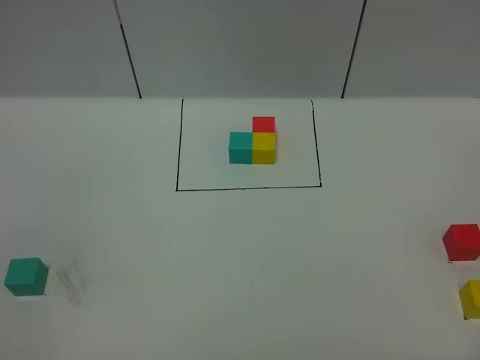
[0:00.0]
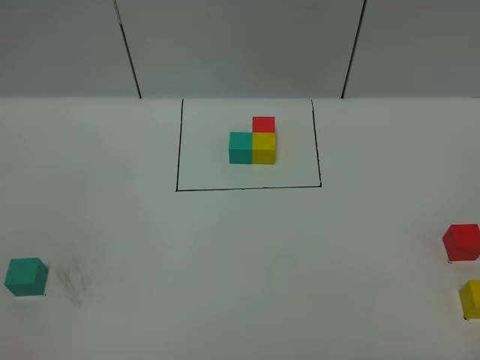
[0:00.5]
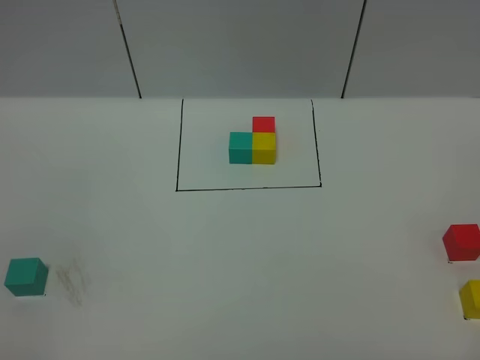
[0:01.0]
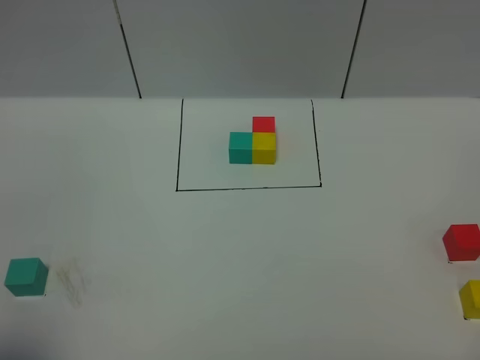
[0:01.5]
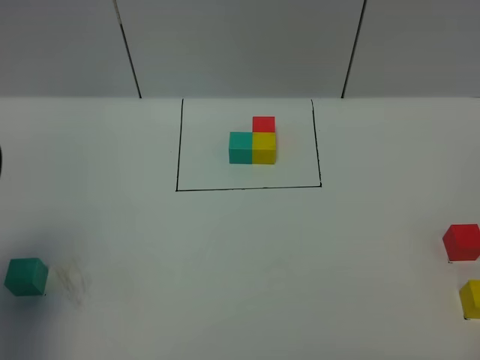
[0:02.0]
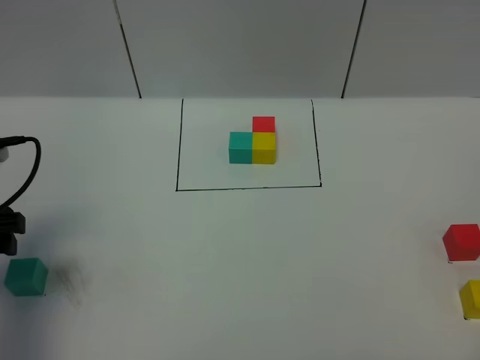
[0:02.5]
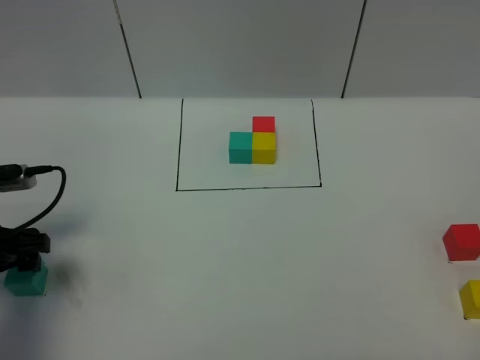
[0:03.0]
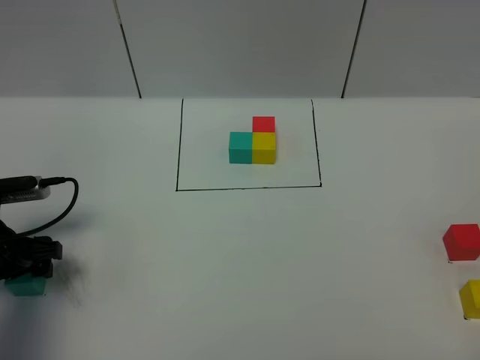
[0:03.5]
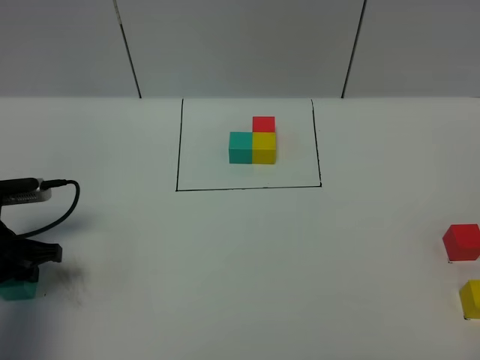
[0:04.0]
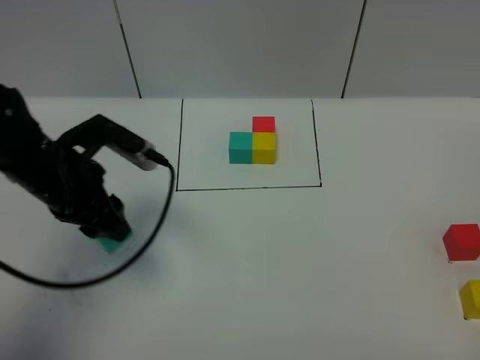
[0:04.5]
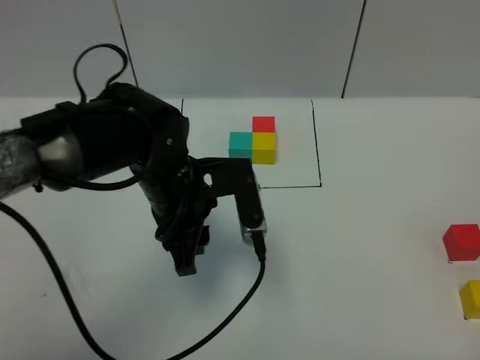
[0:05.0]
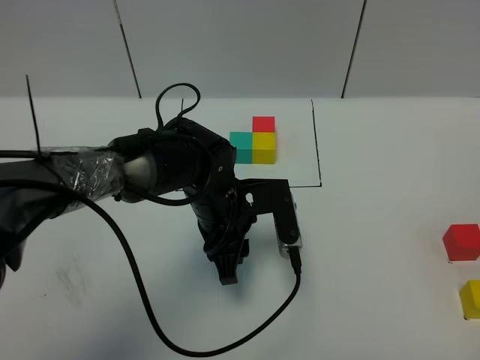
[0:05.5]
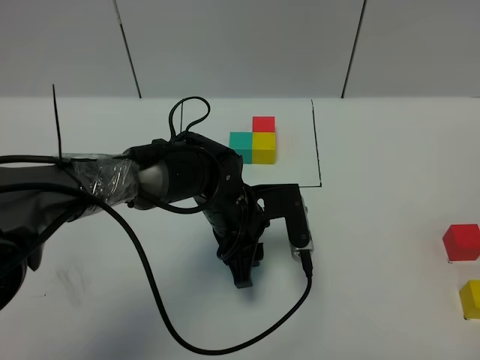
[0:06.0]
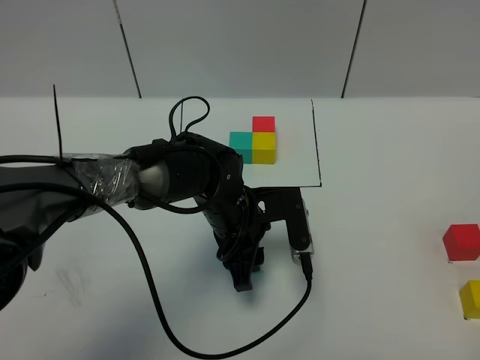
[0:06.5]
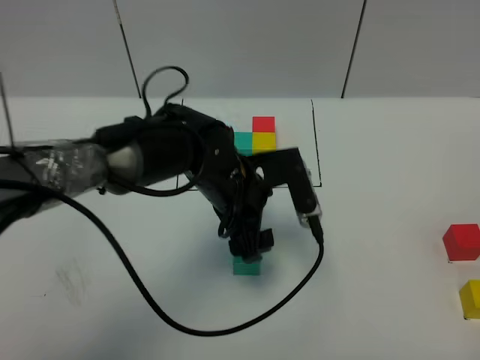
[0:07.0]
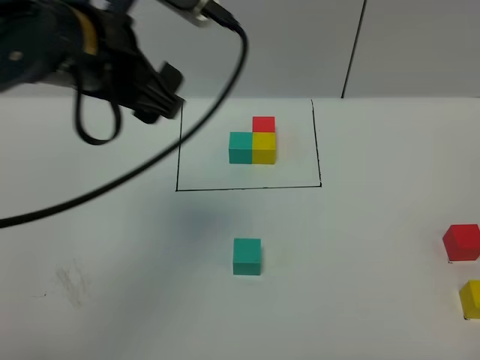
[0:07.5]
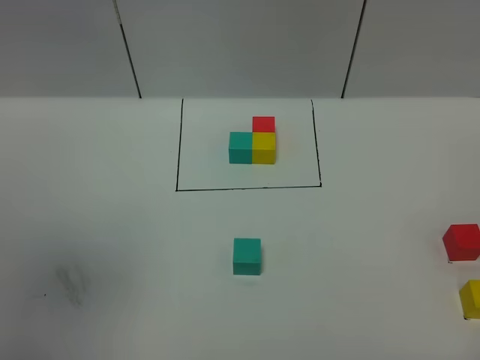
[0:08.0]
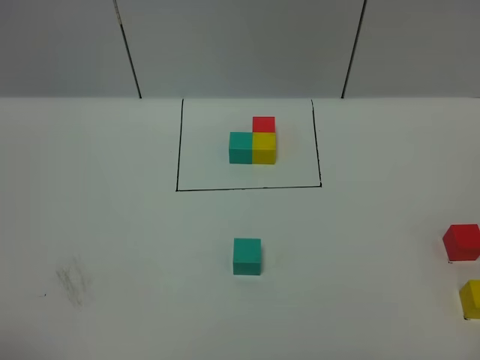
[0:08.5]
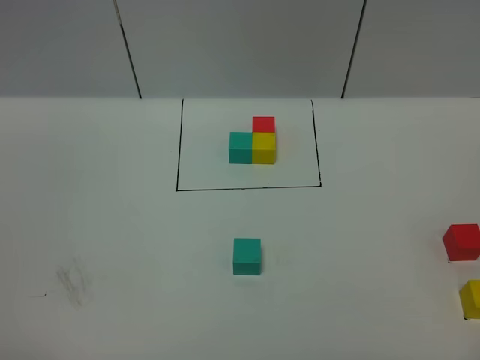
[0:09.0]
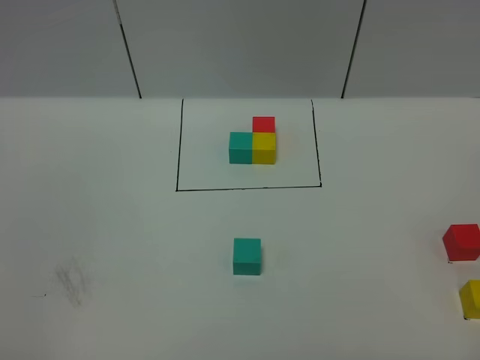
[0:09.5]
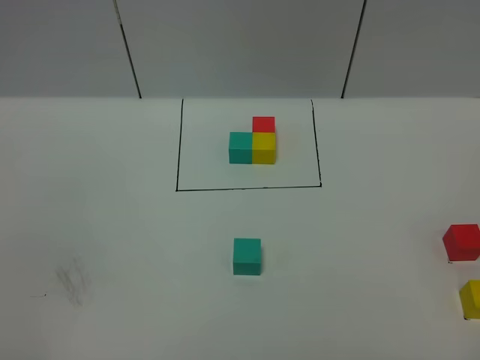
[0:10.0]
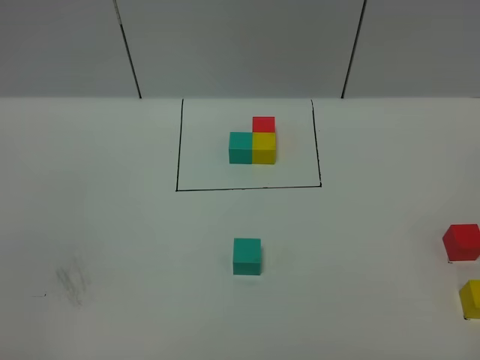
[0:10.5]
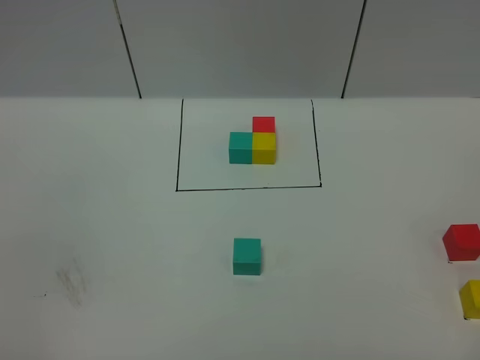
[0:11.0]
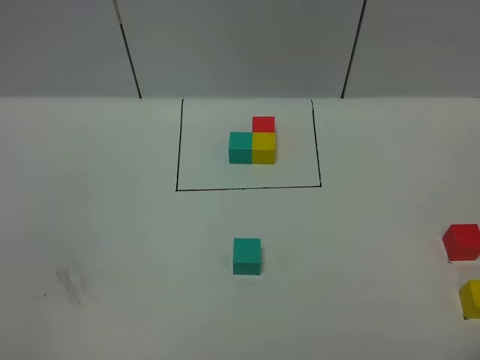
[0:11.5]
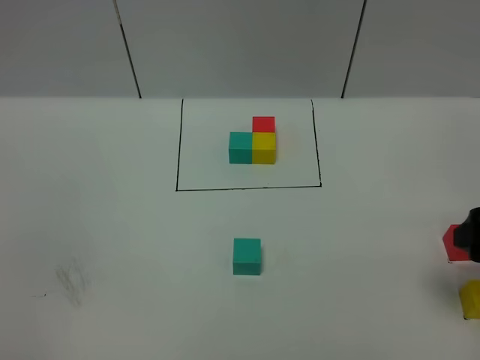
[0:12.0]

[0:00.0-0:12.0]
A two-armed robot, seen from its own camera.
Task of the whole recording: According to the building block template in front, assemble the scattered blocks together.
Step, 0:02.0 to 0:06.5: Put the green cube in the center of the table.
0:00.0 to 0:02.0: The left gripper travels forward by about 20 cm.
0:02.0 to 0:04.0: The left gripper travels downward and forward by roughly 15 cm, and closes up.
0:04.0 to 0:06.0: The left gripper shifts about 30 cm to the right.
0:06.0 to 0:08.0: The left gripper is displaced upward, to the left and backward by approximately 50 cm, and opens.
0:08.0 to 0:10.0: The left gripper shifts about 25 cm downward and backward.
0:10.0 to 0:12.0: The right gripper shifts some 20 cm forward.

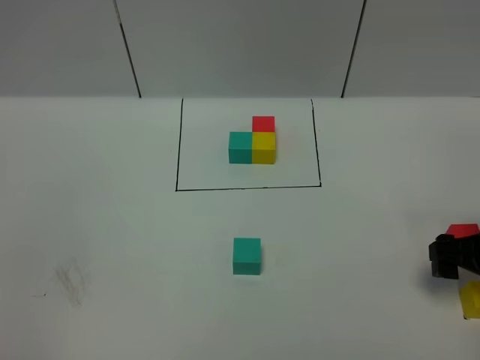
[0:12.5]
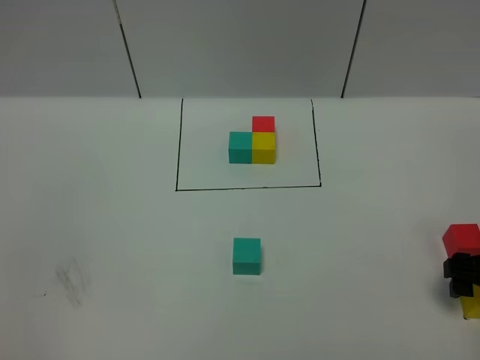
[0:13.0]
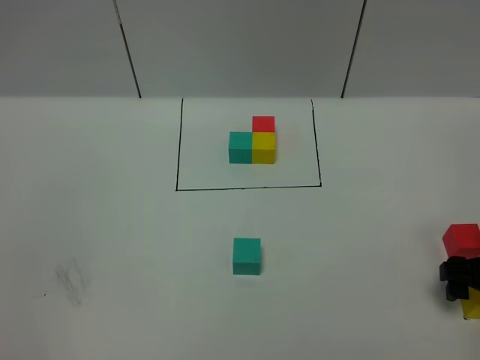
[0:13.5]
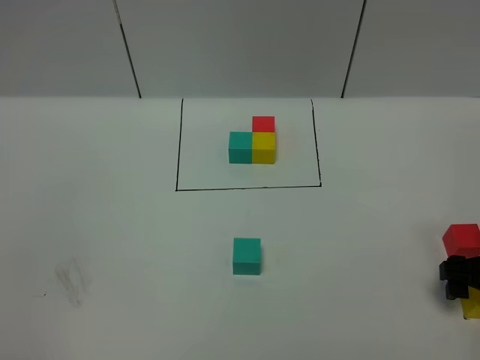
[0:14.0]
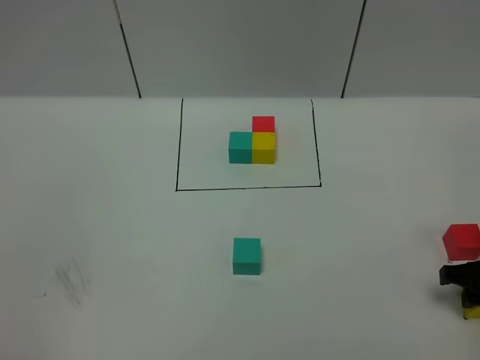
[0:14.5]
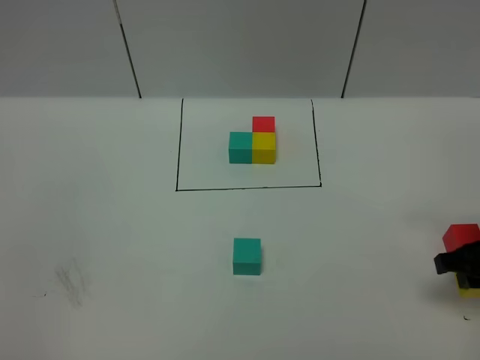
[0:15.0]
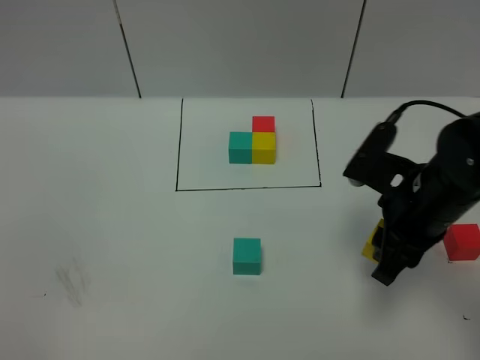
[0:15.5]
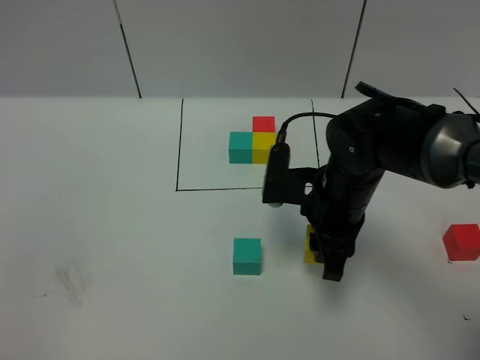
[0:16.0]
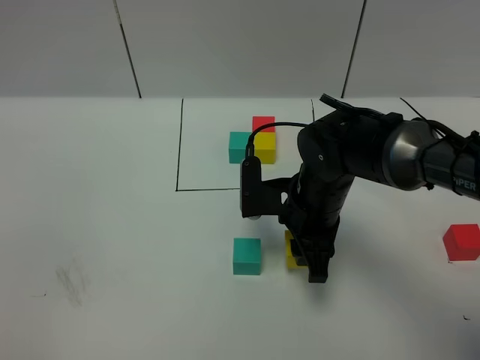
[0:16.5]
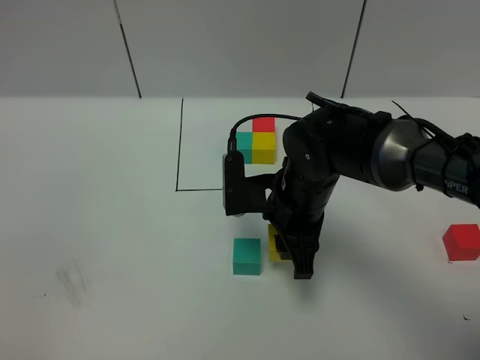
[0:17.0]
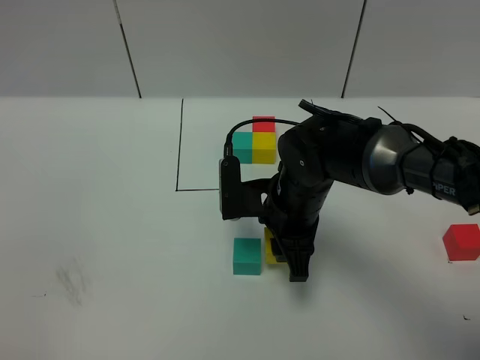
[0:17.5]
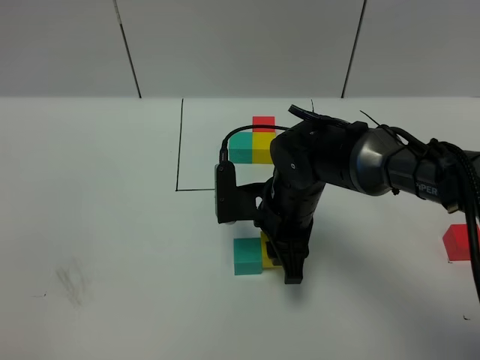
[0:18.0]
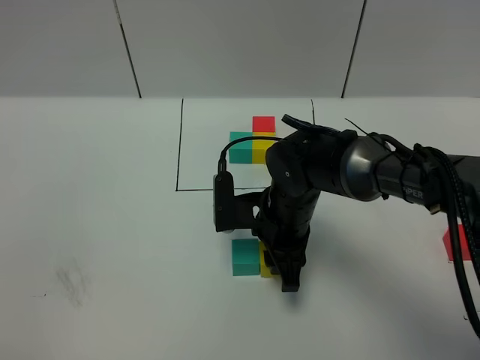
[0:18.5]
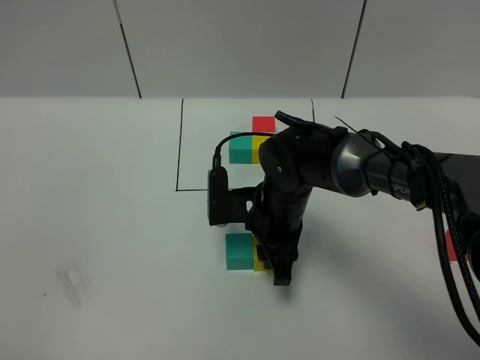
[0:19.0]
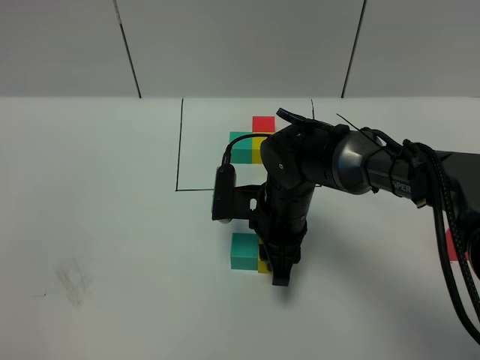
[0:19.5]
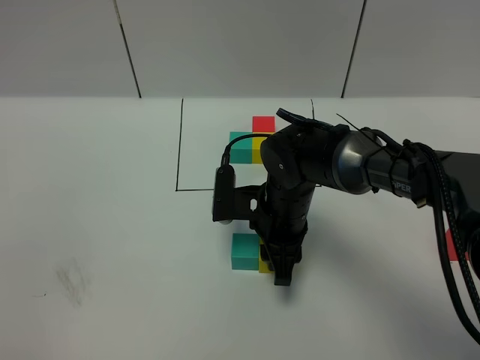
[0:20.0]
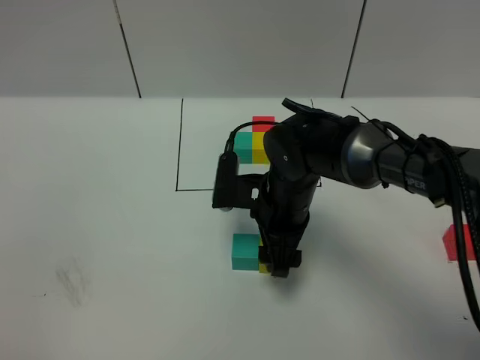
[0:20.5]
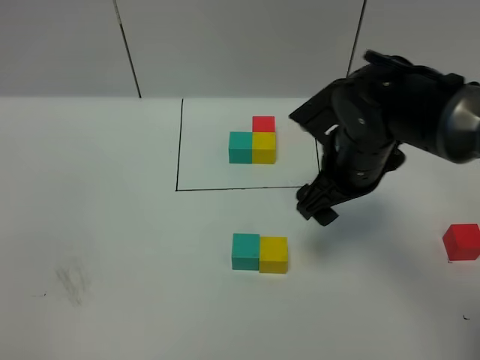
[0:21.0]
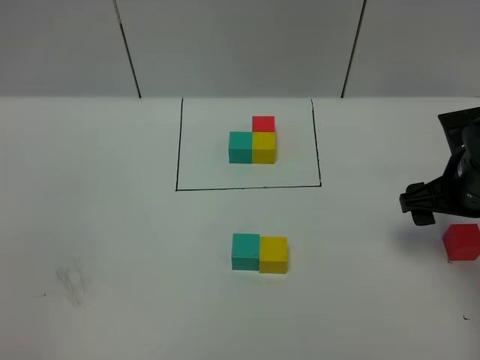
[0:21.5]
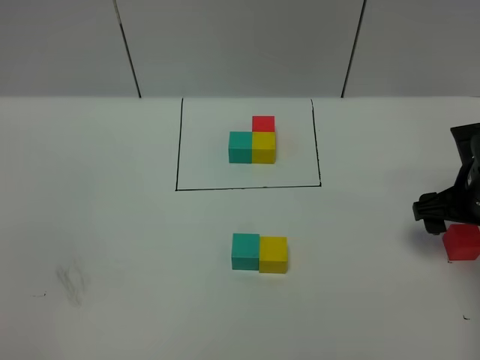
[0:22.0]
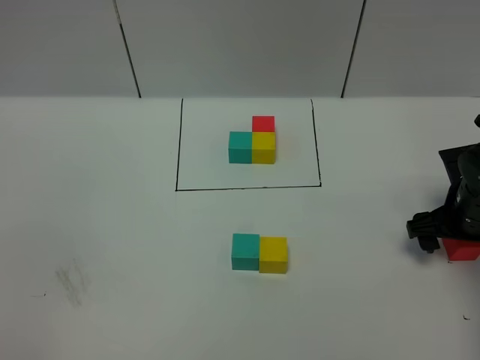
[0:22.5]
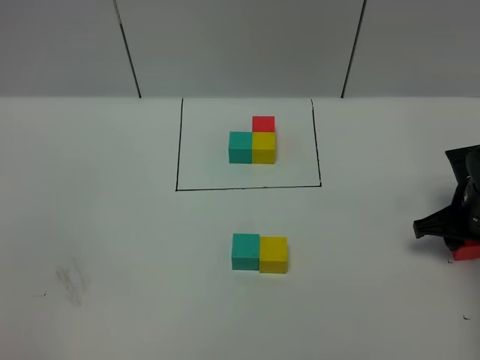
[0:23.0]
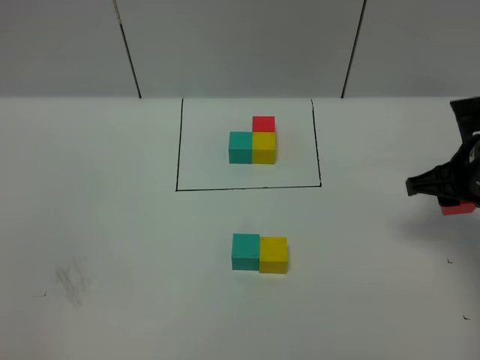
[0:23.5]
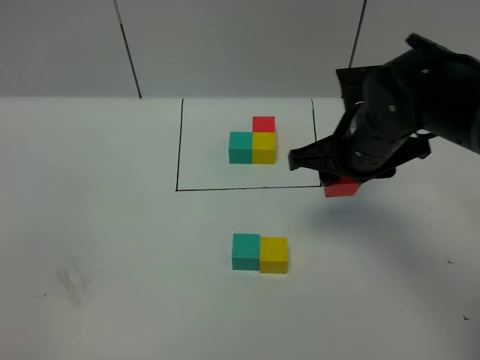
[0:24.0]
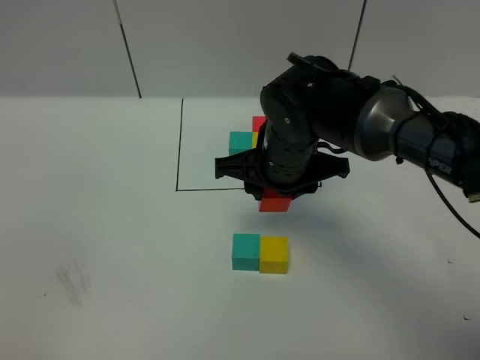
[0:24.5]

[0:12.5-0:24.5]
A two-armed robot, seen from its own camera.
Task of the whole recording: According to the building block template in front, assemble the scattered blocks together.
Step, 0:12.5 to 0:20.5: Put the yellow cube on the right of the green cube.
0:12.5 to 0:14.5: The right gripper closes.
0:14.5 to 0:16.5: The right gripper shifts approximately 25 cm to the left.
0:16.5 to 0:18.5: The grippers stay close to where they were, moving slightly.
0:18.5 to 0:20.5: The right gripper opens up.
0:20.5 to 0:22.5: The right gripper shifts approximately 25 cm to the right.
0:22.5 to 0:24.5: The right gripper shifts some 25 cm to the left, and closes up.

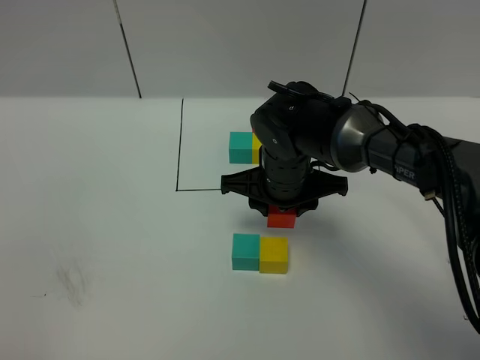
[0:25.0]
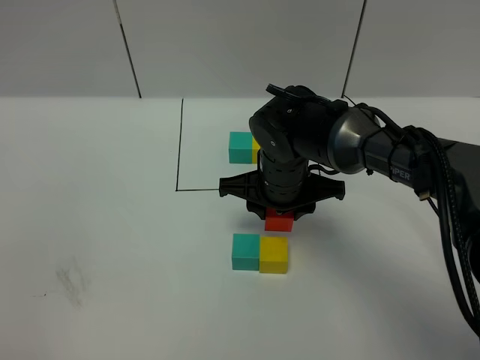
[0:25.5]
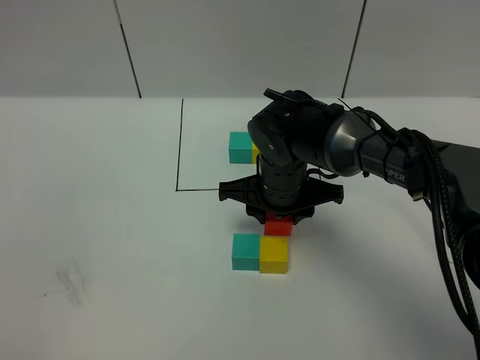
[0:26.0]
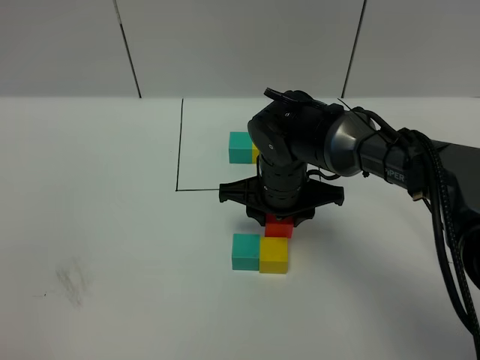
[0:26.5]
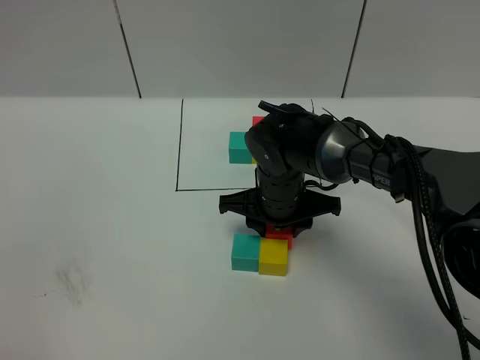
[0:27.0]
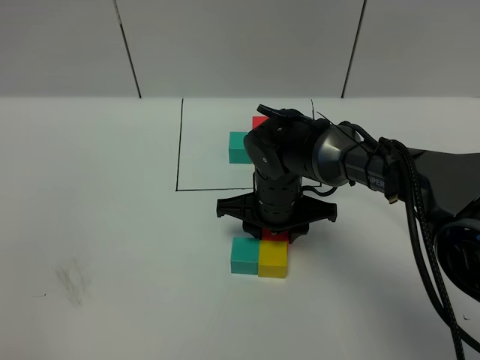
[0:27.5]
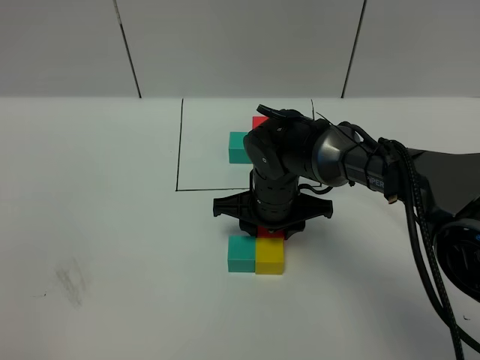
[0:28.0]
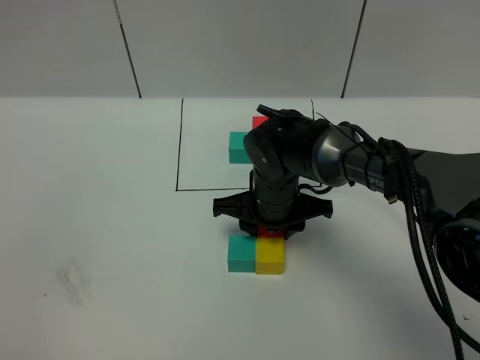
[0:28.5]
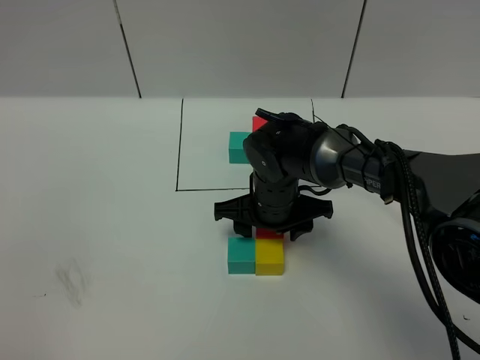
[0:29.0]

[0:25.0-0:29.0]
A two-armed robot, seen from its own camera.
Task of the whole recording: According to the building block template in front, assemble the scattered blocks together.
Step, 0:25.0 to 0:28.5: Put the red cube on the behind of the yellow cube.
0:25.0 to 0:27.0: There are only small adjustments of the grippers.
0:27.0 to 0:29.0: The right gripper opens its fingers.
